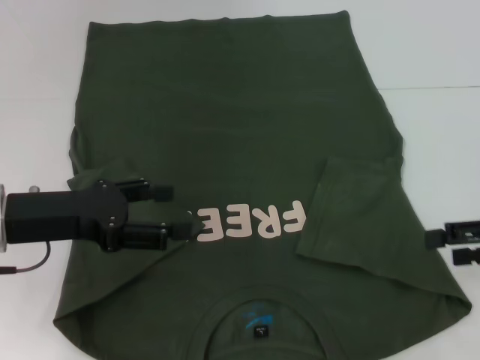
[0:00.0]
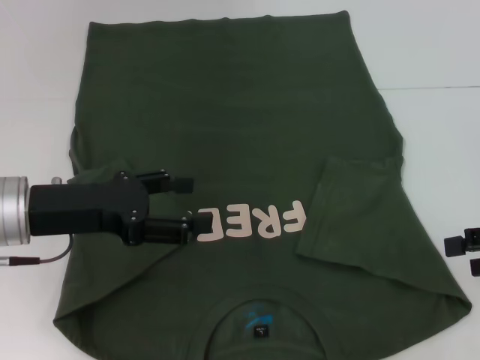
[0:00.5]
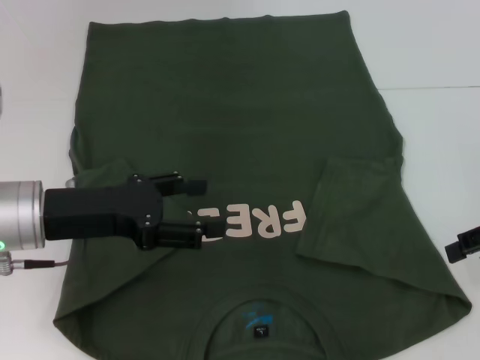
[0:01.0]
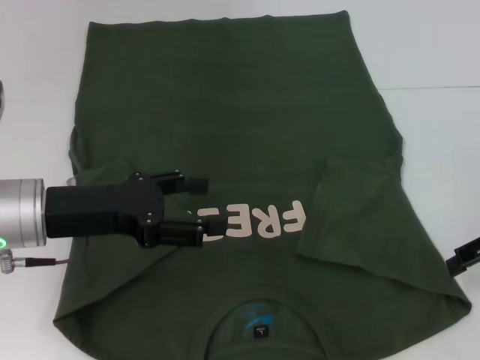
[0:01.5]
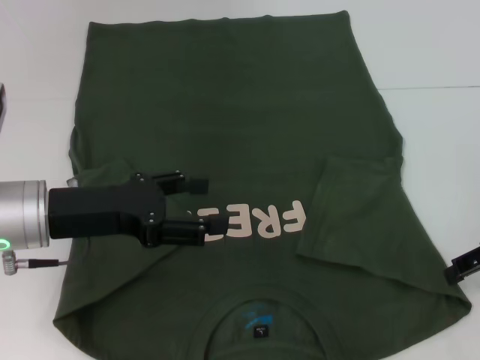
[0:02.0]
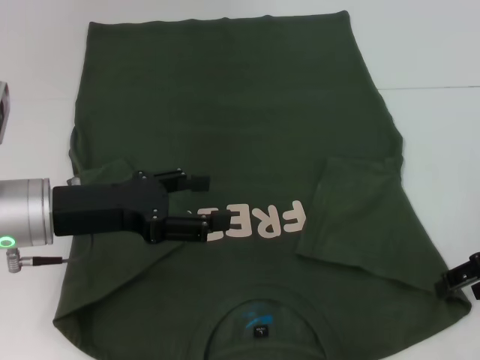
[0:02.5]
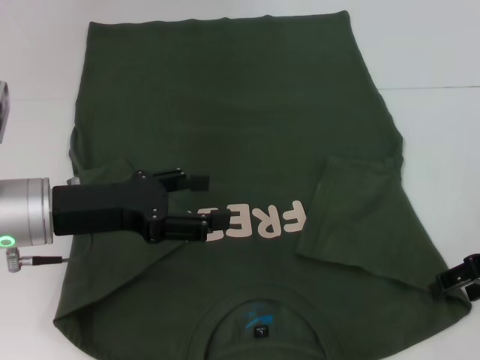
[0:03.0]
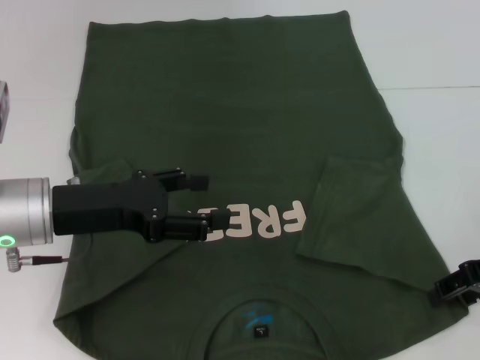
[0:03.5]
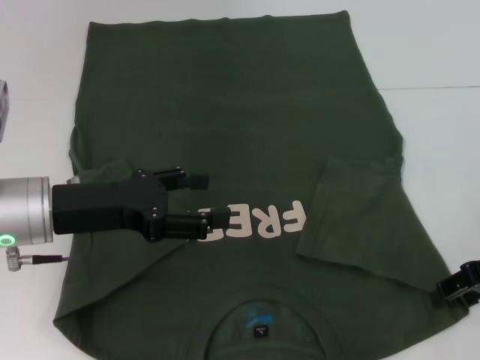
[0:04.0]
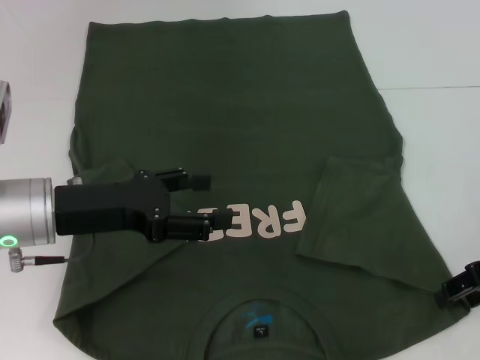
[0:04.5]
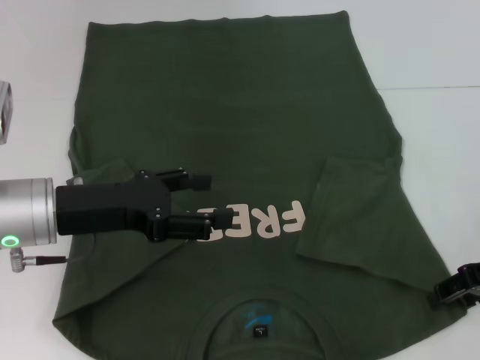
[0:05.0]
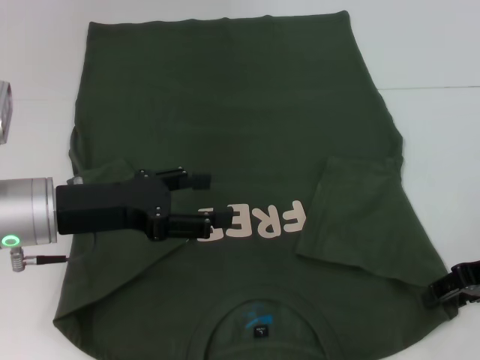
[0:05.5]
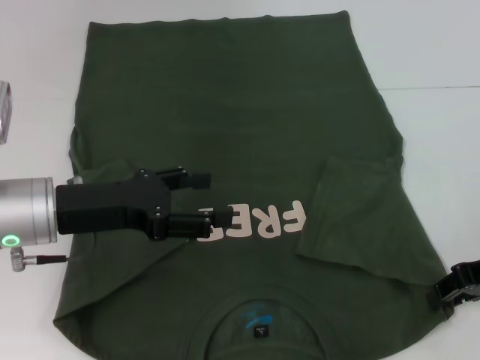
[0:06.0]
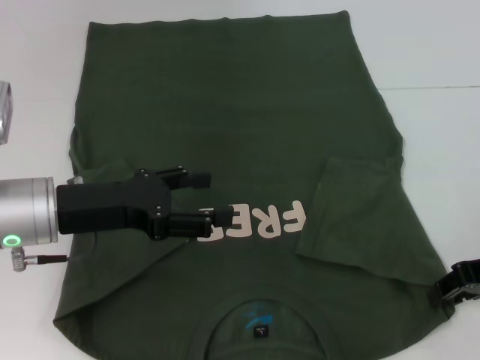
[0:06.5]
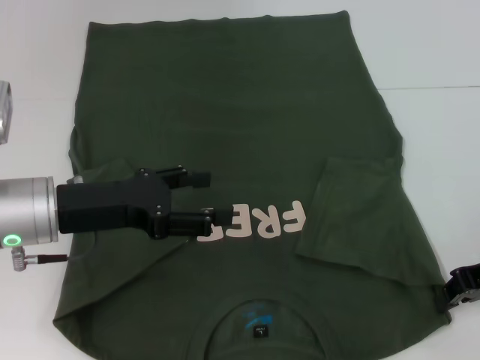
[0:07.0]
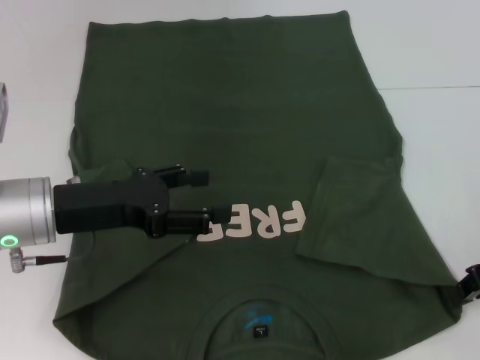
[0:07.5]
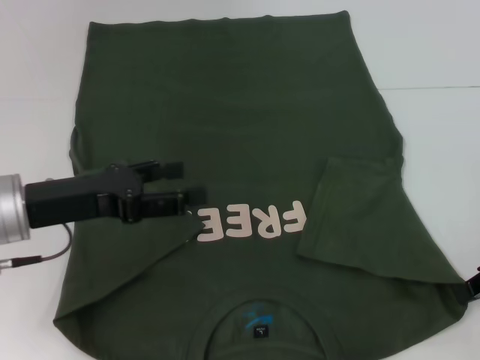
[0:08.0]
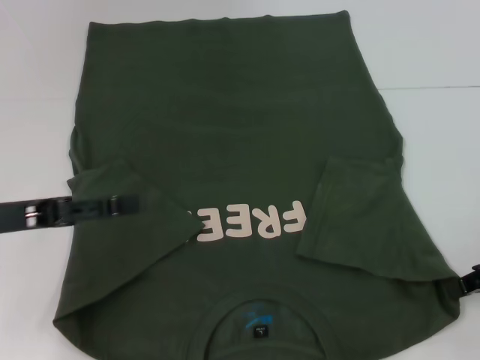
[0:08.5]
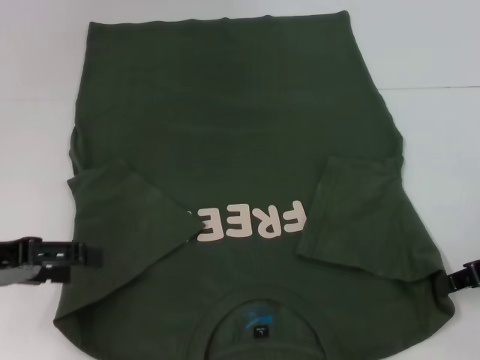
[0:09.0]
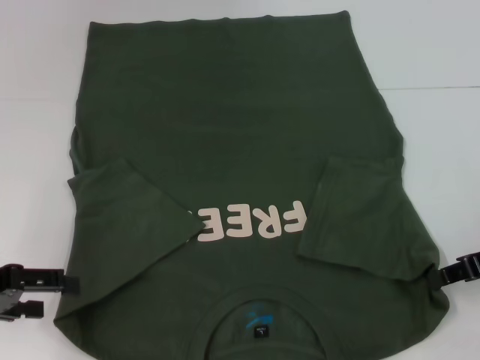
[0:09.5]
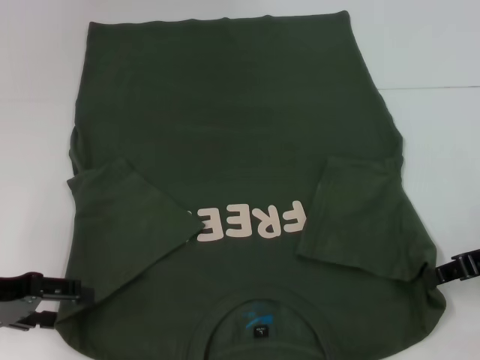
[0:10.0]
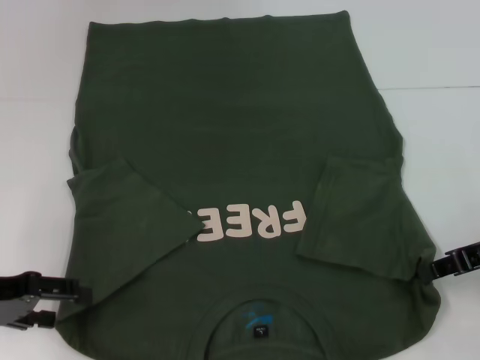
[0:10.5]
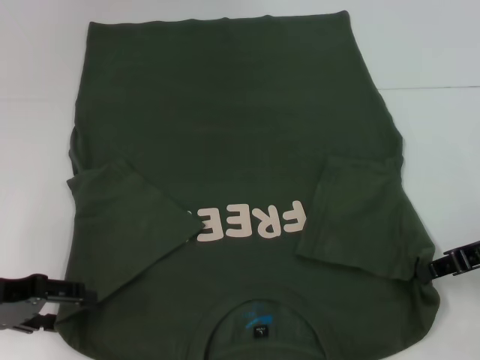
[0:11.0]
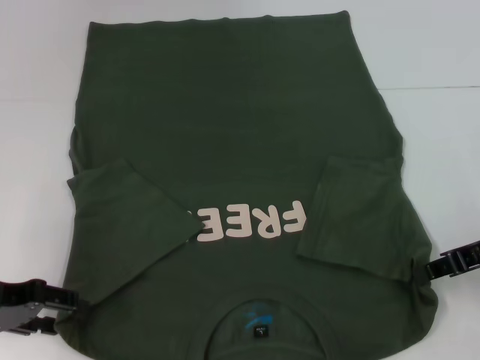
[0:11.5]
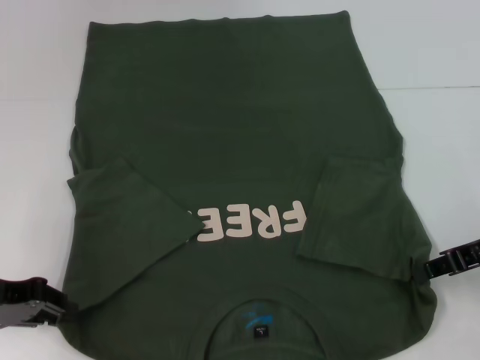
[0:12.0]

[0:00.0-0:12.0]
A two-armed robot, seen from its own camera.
Step, 0:00.0 to 0:07.0: Grab the bottom right corner with your right hand.
0:02.0 to 0:04.0: There are only small adjustments of the grippers.
0:04.0 to 0:06.0: Both grippers stay put.
0:06.0 to 0:08.0: The right gripper closes its fingers.
0:08.0 to 0:10.0: The left gripper moves to the left, approximately 10 cm.
0:10.0 to 0:12.0: The left gripper closes.

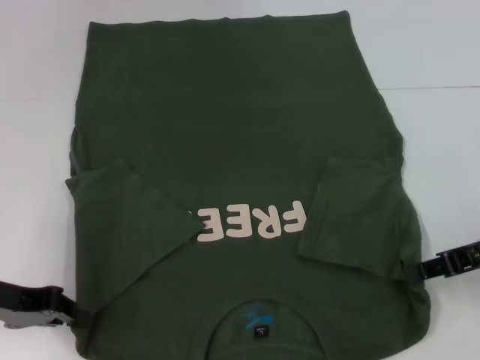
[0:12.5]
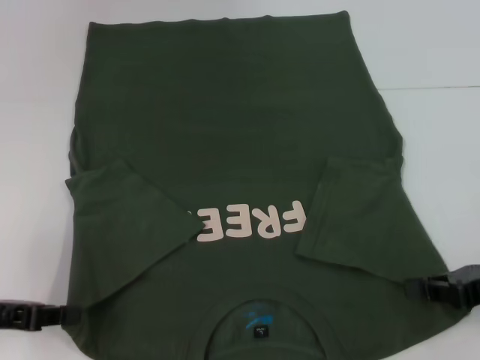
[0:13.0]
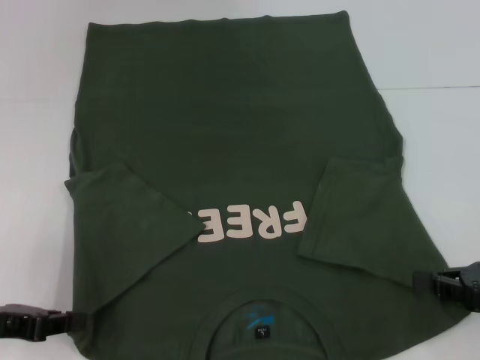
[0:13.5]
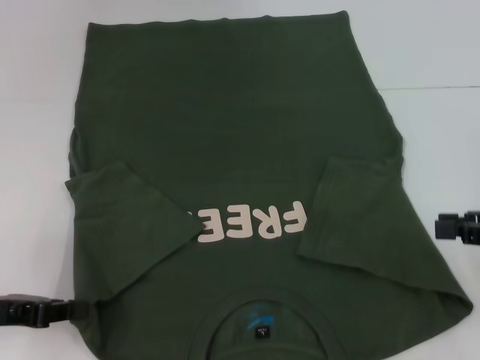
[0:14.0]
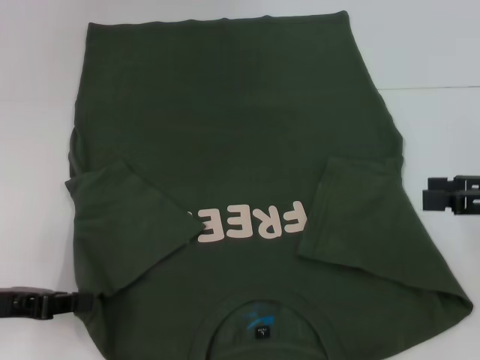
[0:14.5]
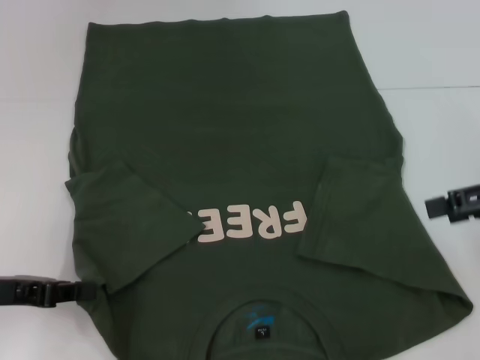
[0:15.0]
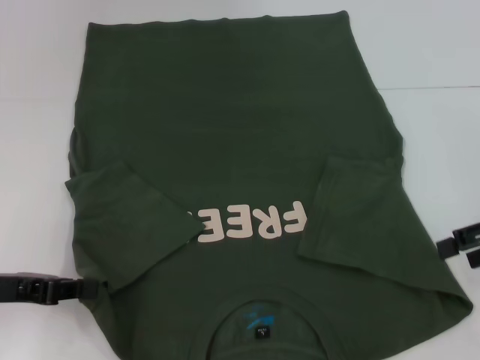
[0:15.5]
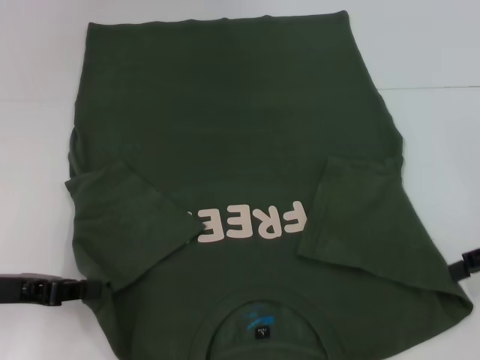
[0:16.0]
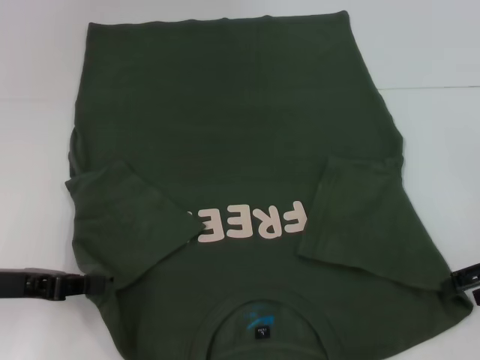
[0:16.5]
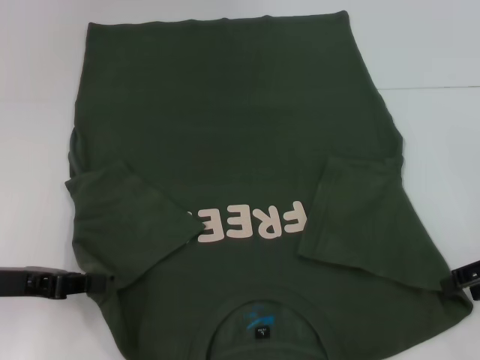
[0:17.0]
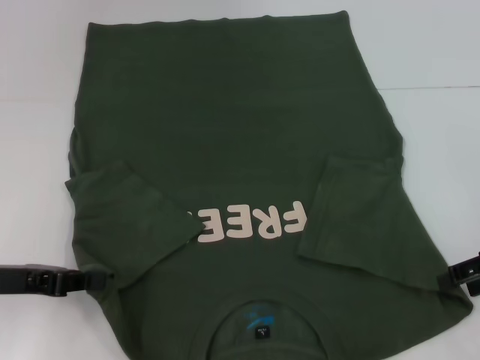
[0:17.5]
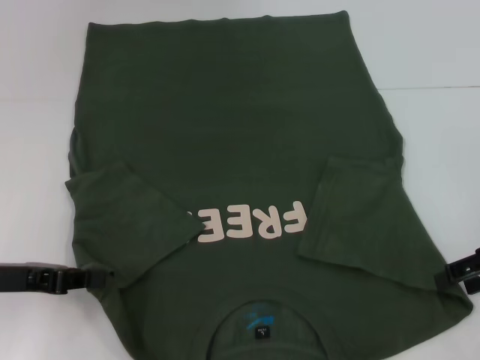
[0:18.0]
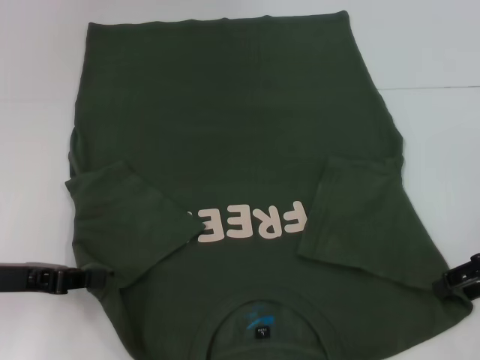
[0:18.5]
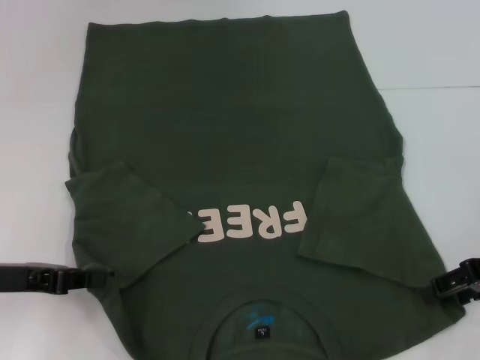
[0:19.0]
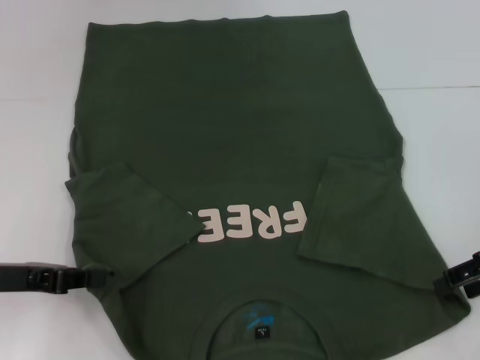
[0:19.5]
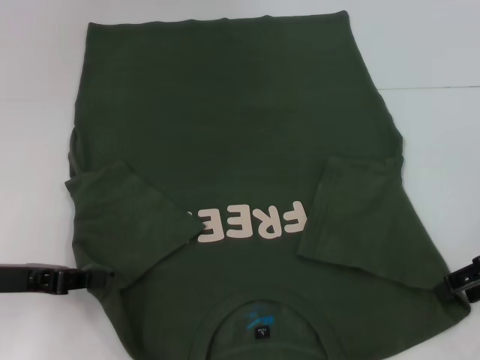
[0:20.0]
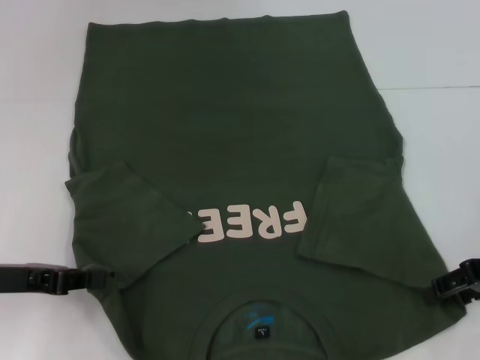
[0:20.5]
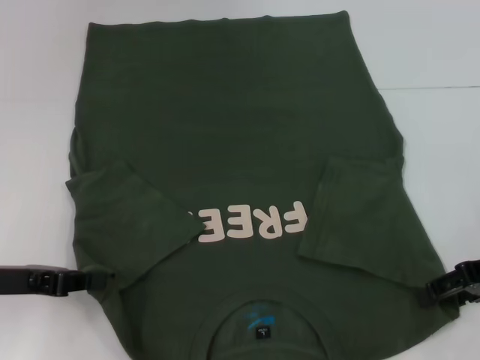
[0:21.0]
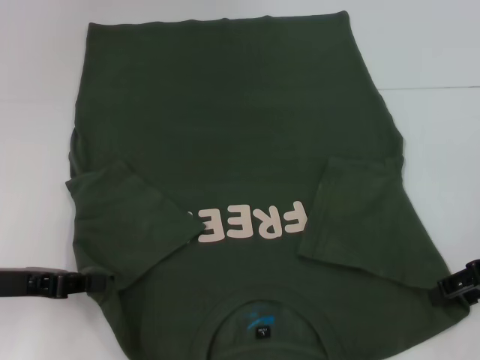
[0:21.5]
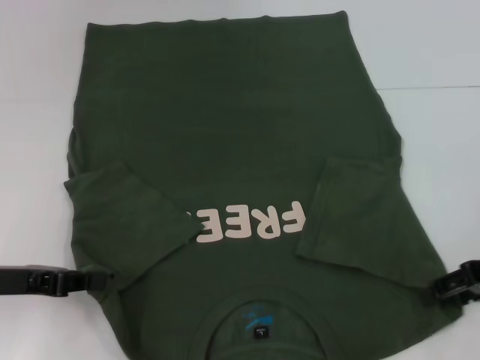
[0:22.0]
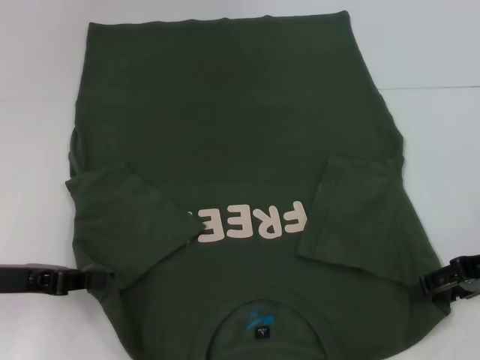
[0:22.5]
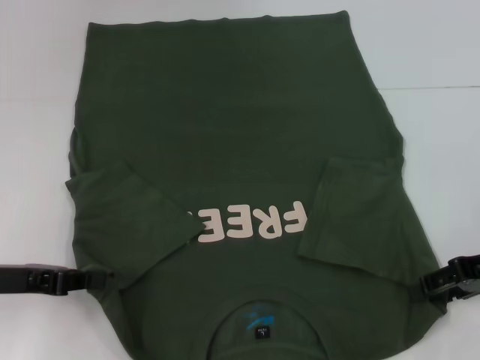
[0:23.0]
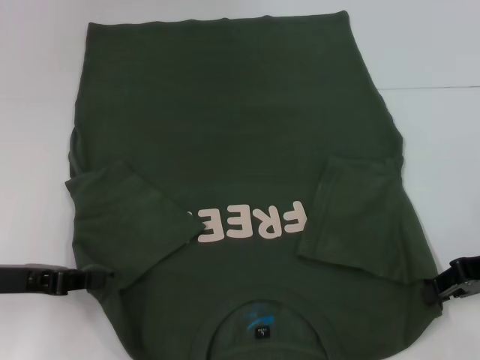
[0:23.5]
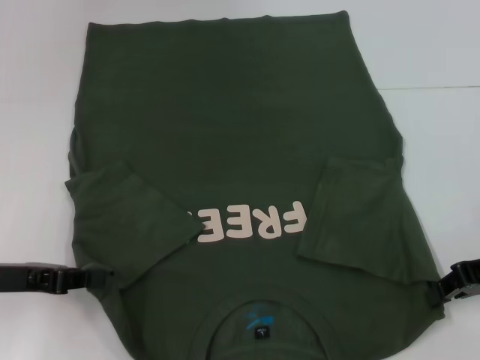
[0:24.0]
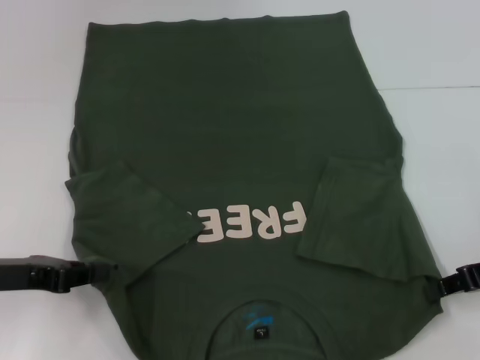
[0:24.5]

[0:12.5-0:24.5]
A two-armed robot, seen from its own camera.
0:12.5 to 0:14.5: The right gripper shifts by roughly 5 cm, and opens.
0:16.5 to 0:18.5: There are only small adjustments of the grippers.
0:18.5 to 0:20.5: Both grippers stay put.
0:20.5 to 0:22.5: Both grippers stay about where they are.
0:22.5 to 0:24.5: The right gripper closes.

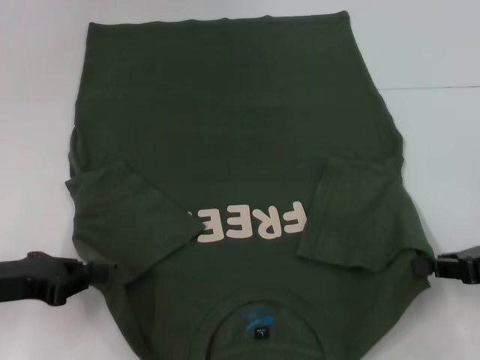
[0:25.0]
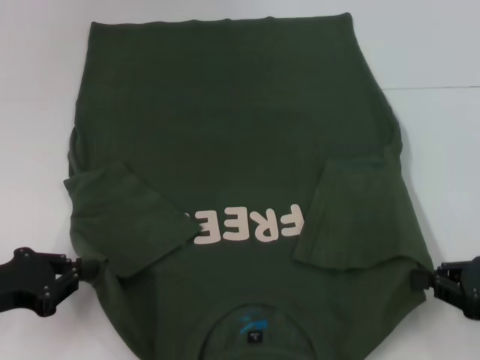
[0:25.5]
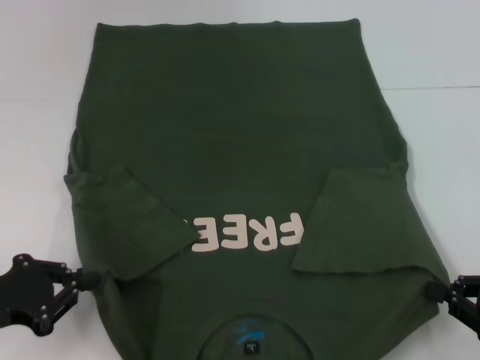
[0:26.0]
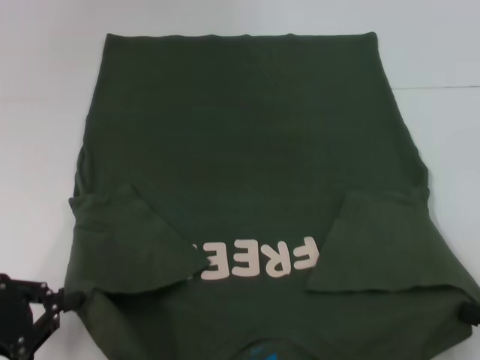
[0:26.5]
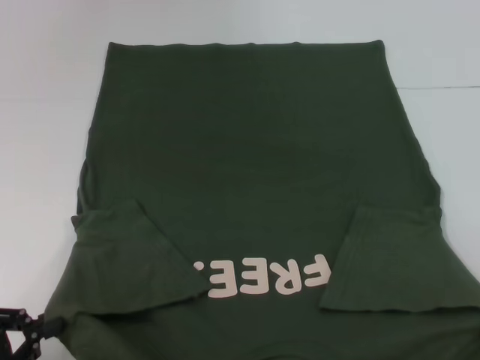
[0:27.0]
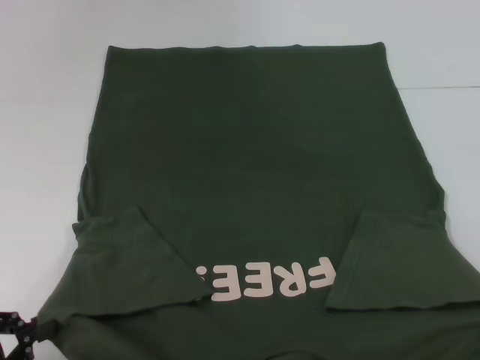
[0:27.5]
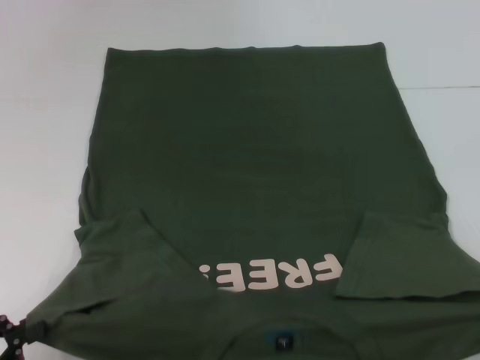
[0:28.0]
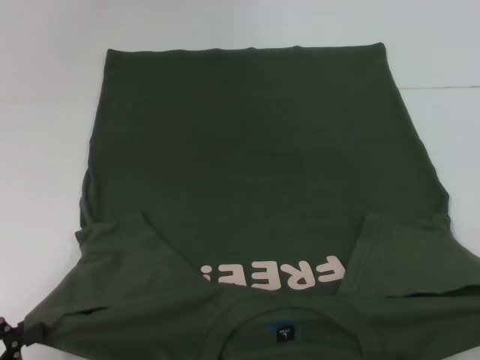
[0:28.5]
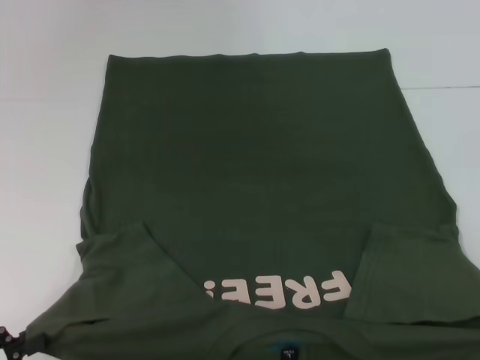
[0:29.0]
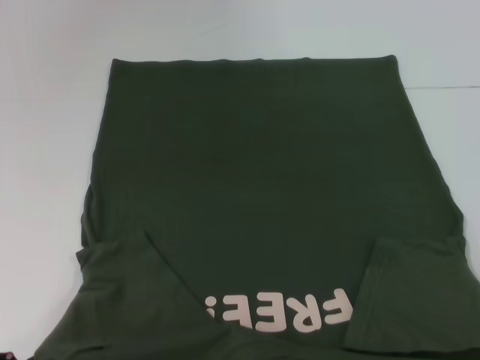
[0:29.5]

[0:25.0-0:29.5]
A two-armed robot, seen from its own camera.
0:25.0 to 0:27.0: Both grippers move backward, about 15 cm.
0:27.0 to 0:29.5: The right gripper shifts approximately 5 cm backward.
